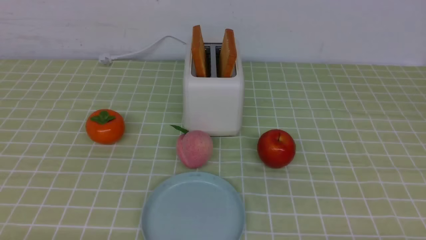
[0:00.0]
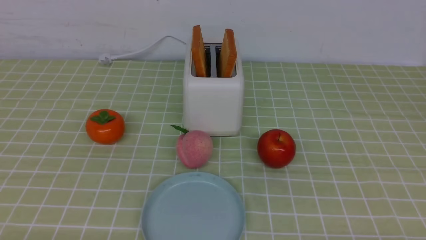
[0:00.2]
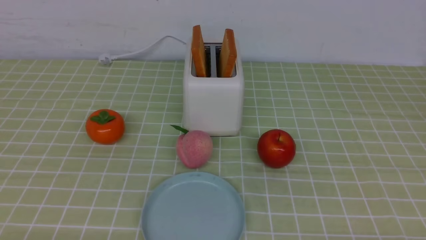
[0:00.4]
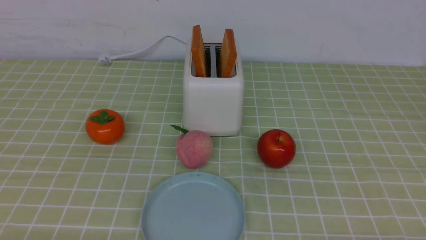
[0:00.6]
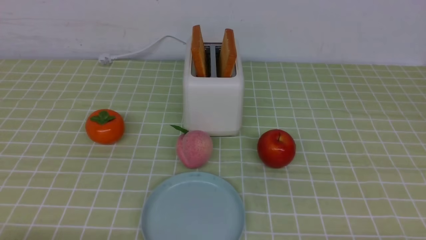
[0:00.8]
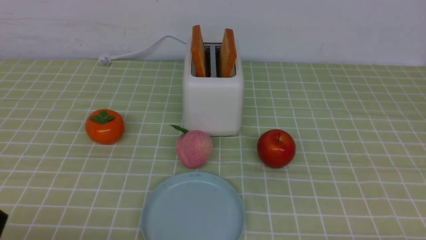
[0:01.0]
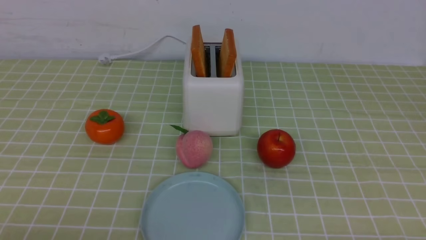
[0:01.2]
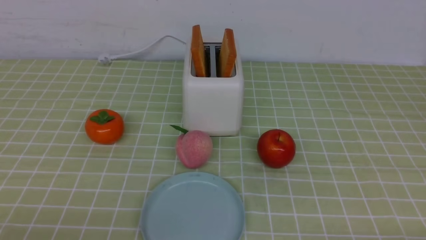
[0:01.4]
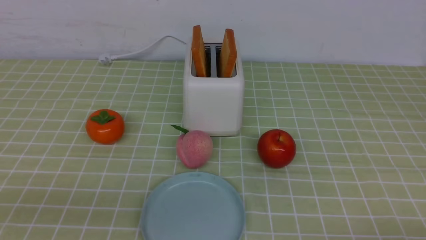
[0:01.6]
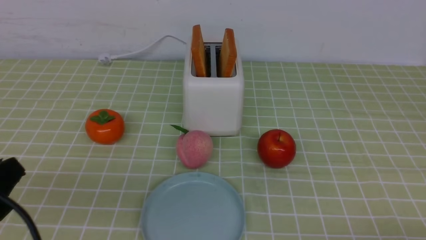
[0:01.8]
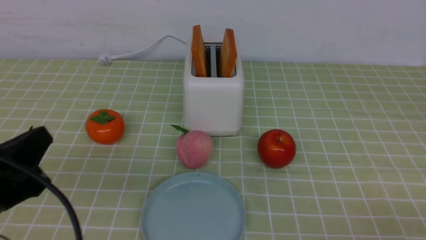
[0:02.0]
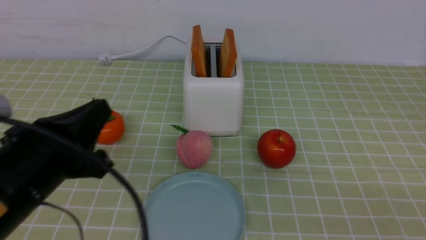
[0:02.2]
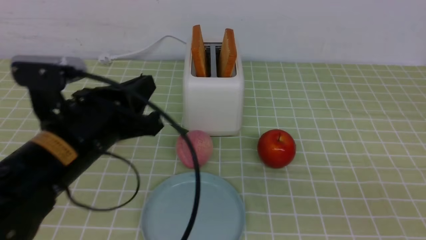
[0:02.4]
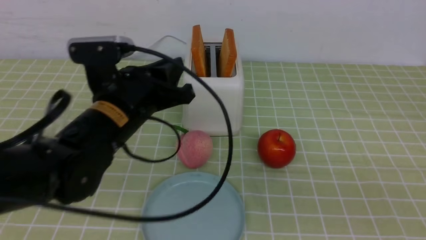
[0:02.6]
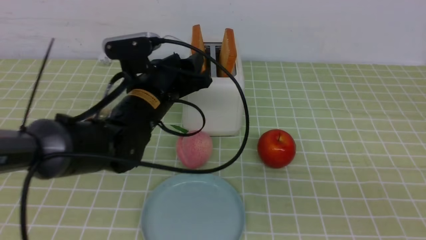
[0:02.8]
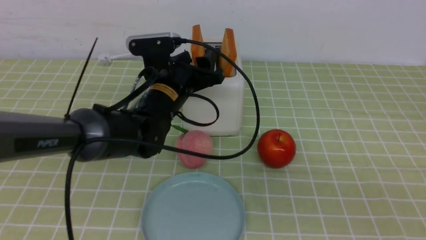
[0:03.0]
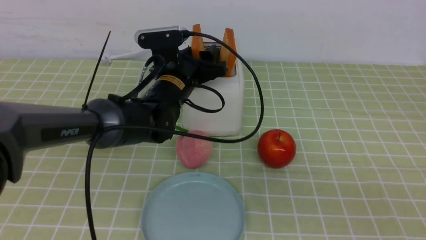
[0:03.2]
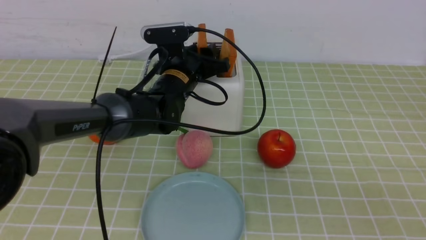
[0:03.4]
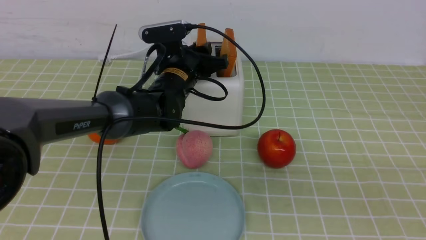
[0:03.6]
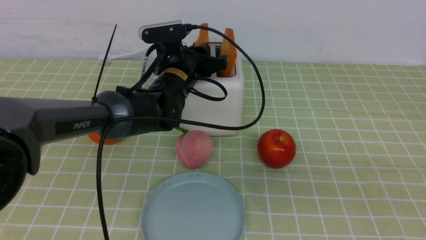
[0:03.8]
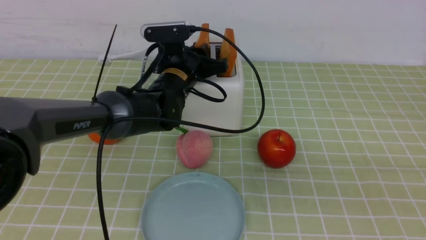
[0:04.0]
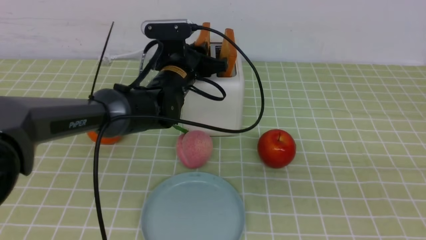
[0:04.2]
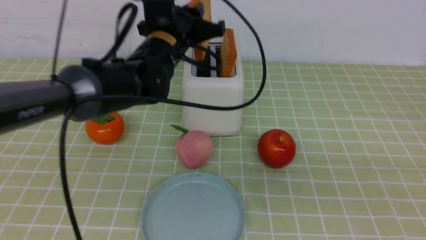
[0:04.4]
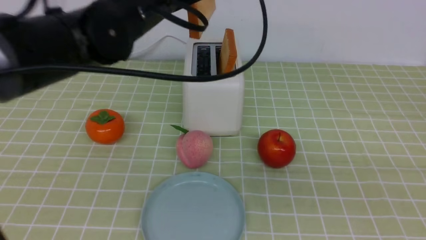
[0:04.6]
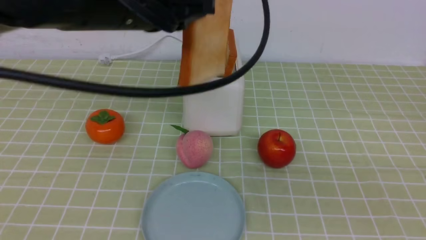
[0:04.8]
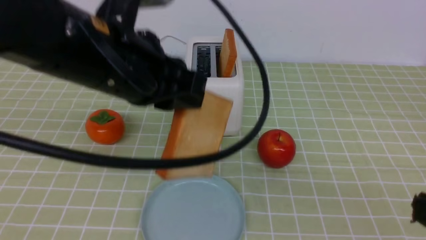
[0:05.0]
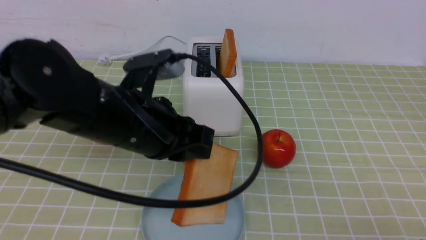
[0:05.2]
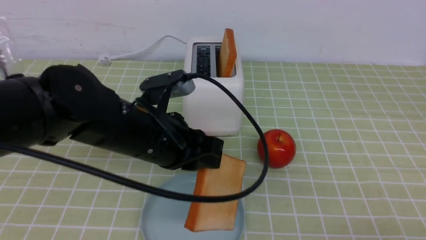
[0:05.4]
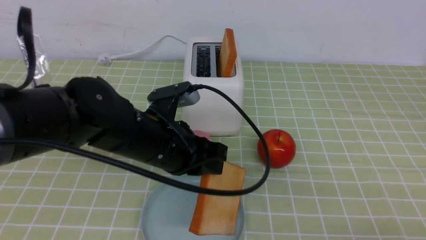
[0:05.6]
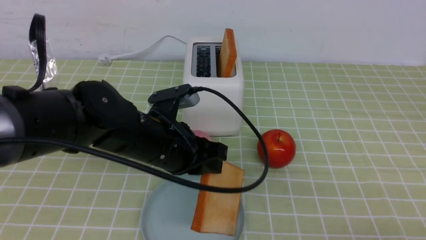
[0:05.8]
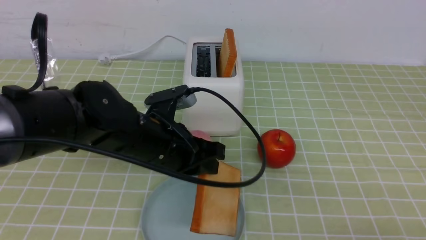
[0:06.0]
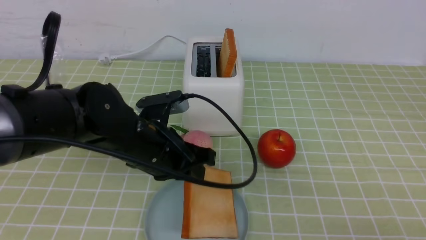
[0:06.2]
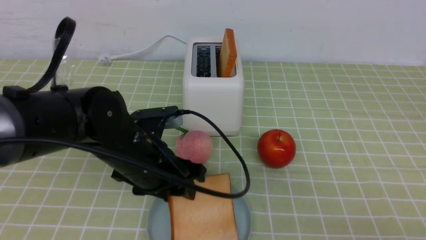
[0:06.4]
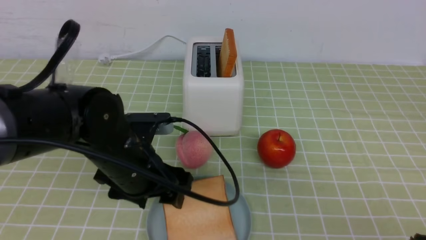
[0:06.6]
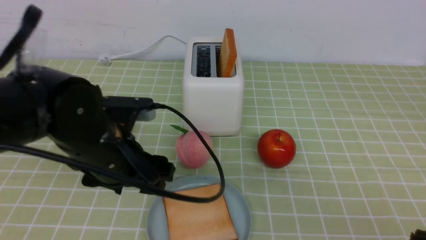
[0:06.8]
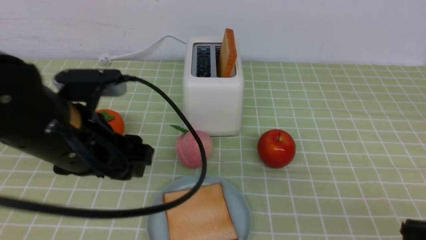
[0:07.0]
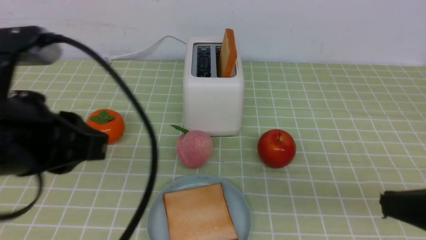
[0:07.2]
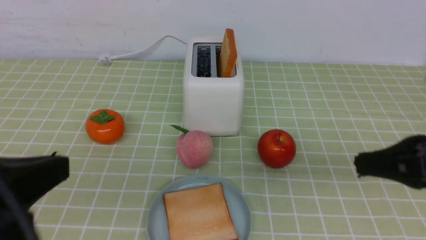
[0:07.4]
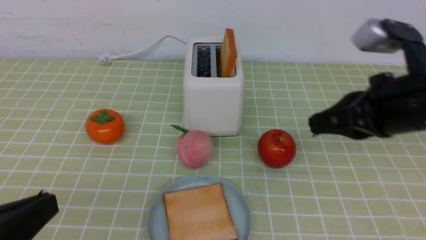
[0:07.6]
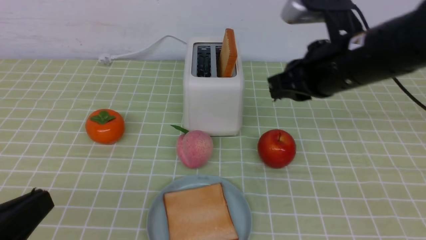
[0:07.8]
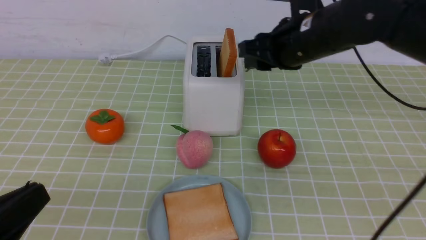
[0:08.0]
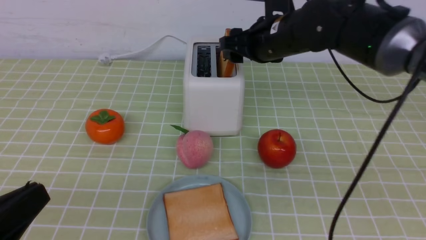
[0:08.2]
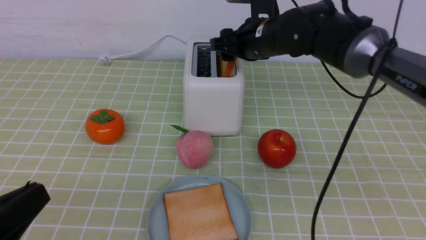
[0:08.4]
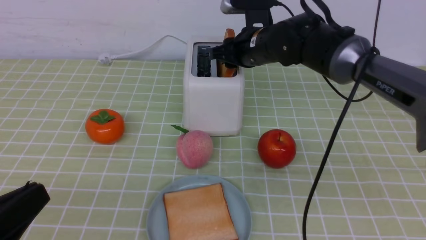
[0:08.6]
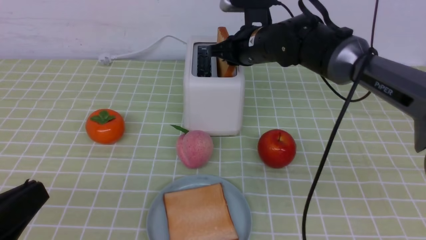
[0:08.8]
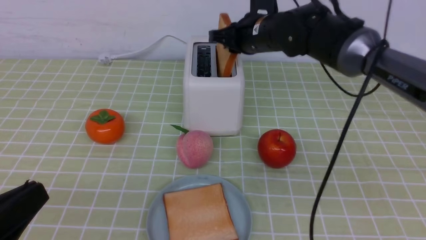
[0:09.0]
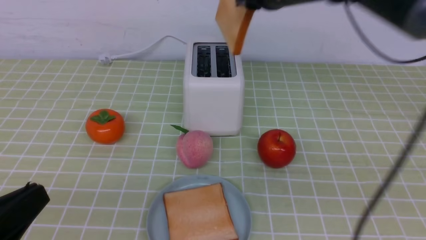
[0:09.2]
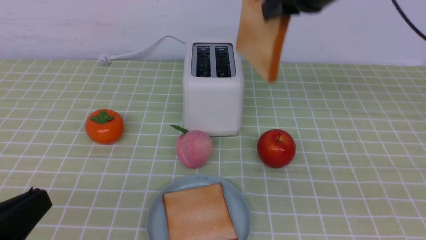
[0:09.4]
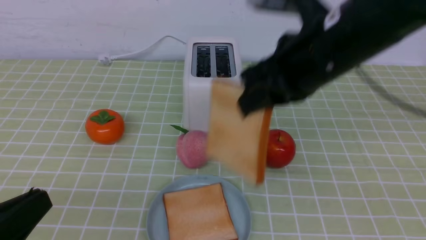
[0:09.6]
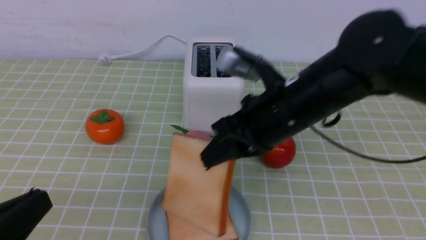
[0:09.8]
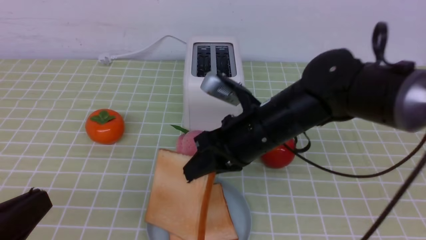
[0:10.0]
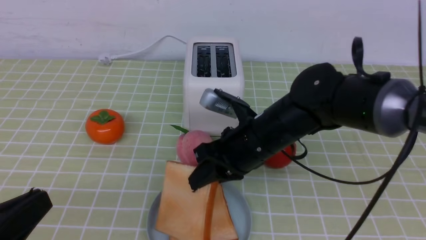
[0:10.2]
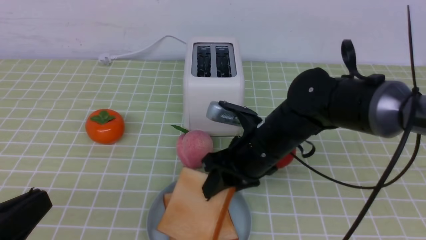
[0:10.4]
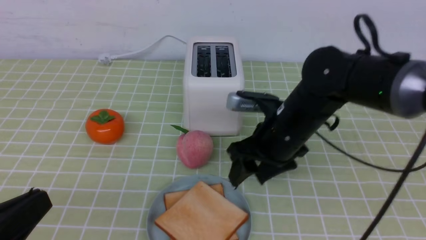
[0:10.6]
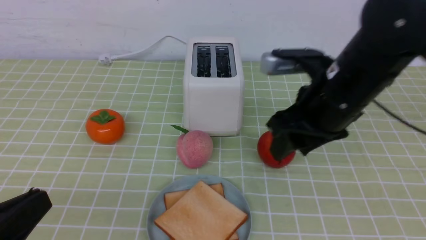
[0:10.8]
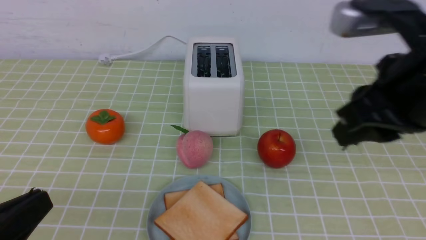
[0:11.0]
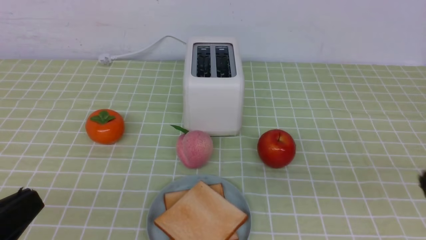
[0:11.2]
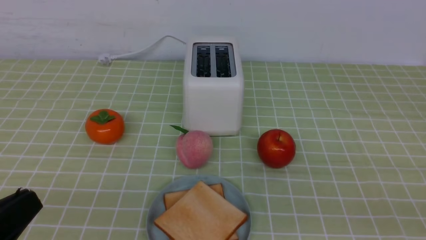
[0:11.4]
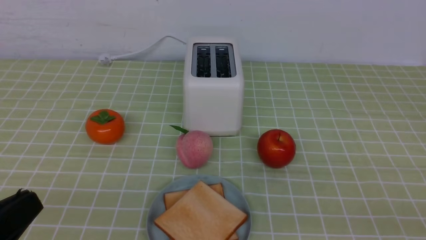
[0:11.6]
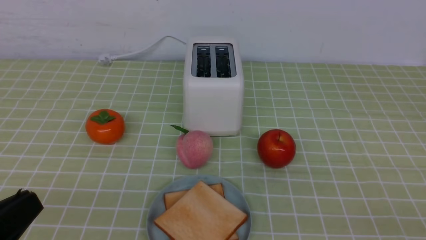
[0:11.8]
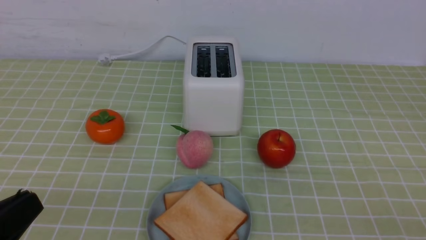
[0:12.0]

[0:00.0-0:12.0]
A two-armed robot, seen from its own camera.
Task of the whole recording: take toasted bread from bread machine on green coffee tablecloth place on plate.
Step, 0:00.0 to 0:04.6: use the left arm to take out a slice of bread.
Step, 0:04.8 to 0:07.4: use the left arm to put a slice of bread into the empty plate.
Step, 0:07.6 to 0:09.2: use the right arm to take out a slice of bread.
Step, 0:09.4 to 0:11.0: use the right arm to put a slice of bread into the plate.
0:01.6 to 0:03.0: The right gripper shifts some 15 cm upward, and closes up. Meanwhile the left gripper travels forward and to the right by roughly 35 cm, and opens up.
0:03.0 to 0:04.4: The left gripper goes approximately 10 cm upward, and closes its fingers.
0:04.4 to 0:06.0: The left gripper travels backward and downward by approximately 15 cm.
0:06.0 to 0:07.6: The left gripper shifts roughly 25 cm backward and to the left, and opens, then closes once more, while the right gripper moves forward, some 20 cm.
0:07.6 to 0:09.0: The right gripper is displaced forward and to the left by some 20 cm, and opens and closes again.
0:09.0 to 0:10.4: The right gripper travels backward and downward by roughly 15 cm, and opens its fingers.
0:10.4 to 0:12.0: The right gripper goes roughly 35 cm backward and to the right, and closes up.

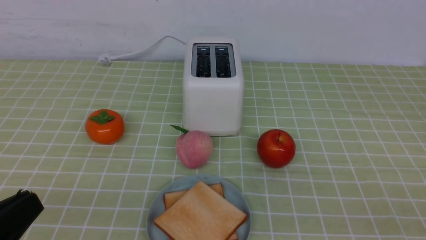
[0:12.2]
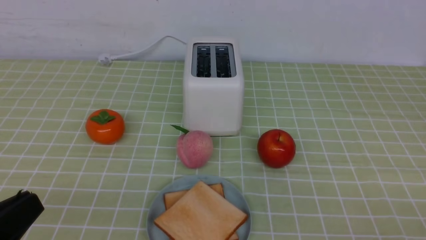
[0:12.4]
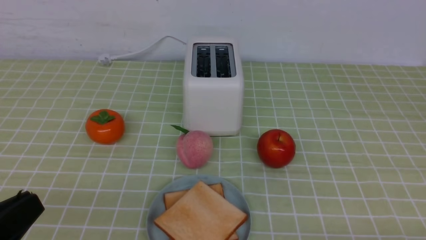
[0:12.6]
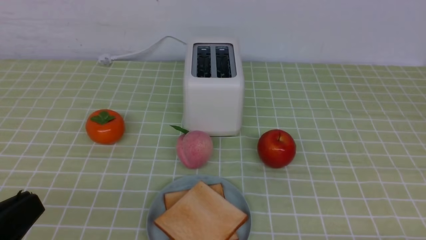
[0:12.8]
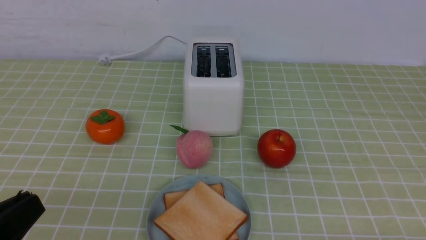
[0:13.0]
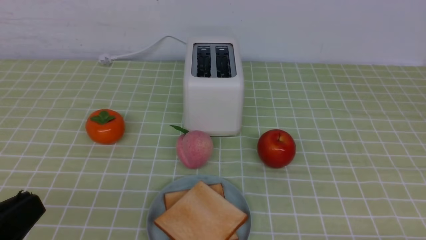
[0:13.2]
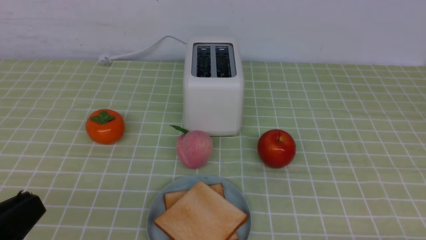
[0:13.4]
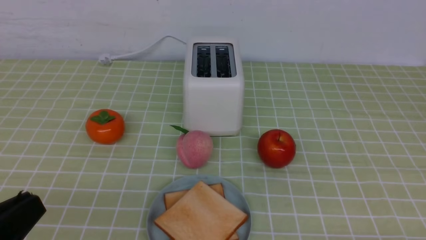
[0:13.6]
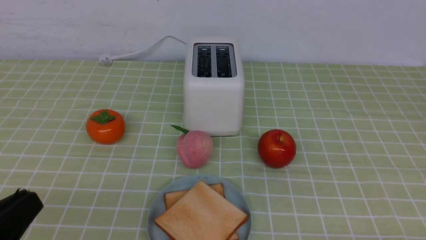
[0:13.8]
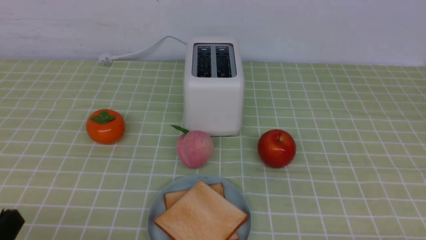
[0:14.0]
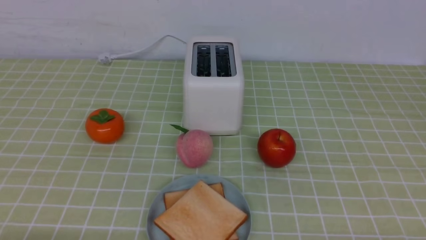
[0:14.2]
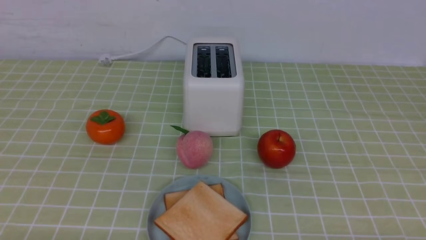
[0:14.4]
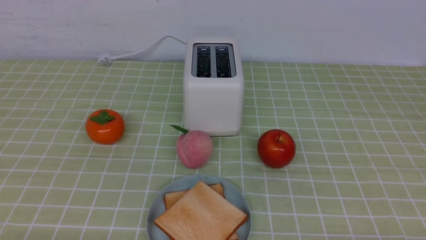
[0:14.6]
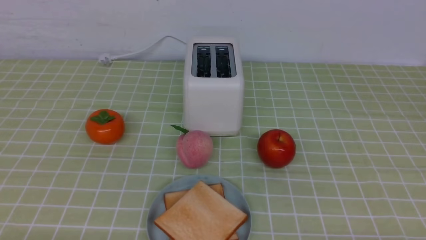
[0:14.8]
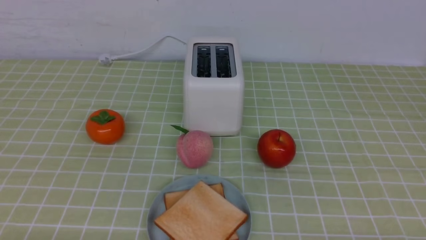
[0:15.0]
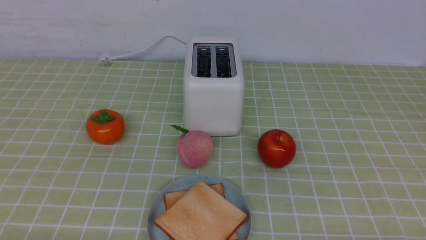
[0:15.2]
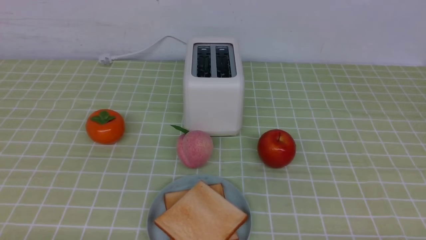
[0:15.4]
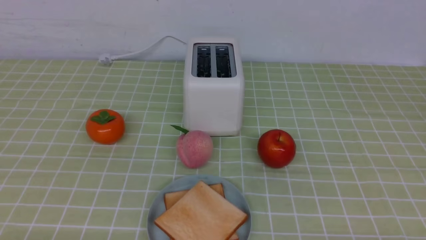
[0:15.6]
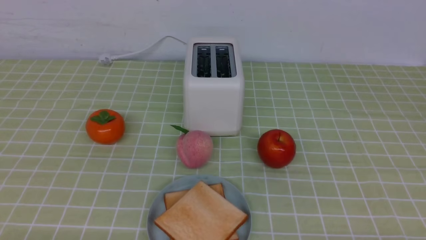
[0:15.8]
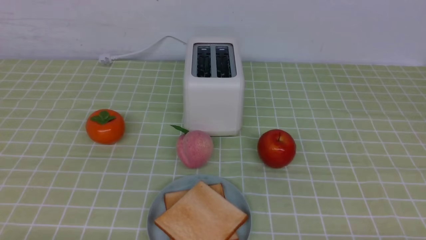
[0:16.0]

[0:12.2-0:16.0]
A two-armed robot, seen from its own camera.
Task of the whole recording: take toasted bread from bread machine on green coffee tablecloth place on plate.
0:13.4 to 0:14.8: The left gripper shifts some 10 cm downward.
0:14.8 to 0:16.0: Both grippers stay put.
